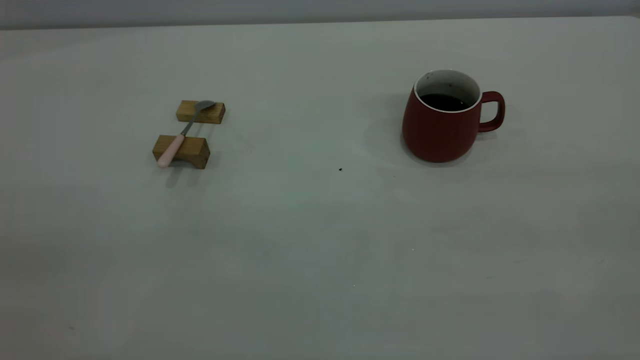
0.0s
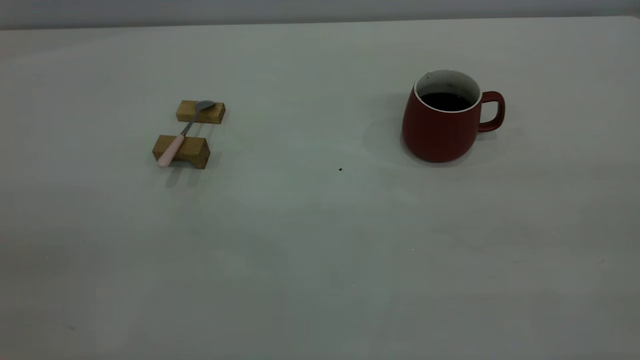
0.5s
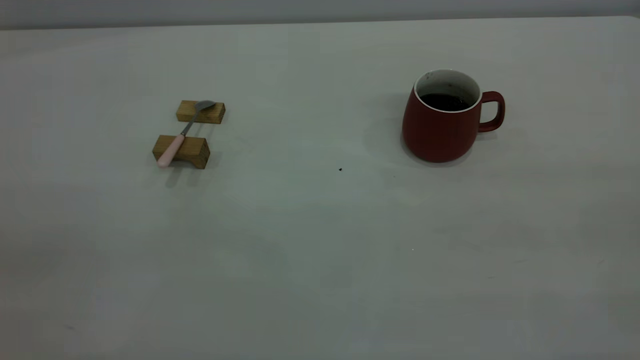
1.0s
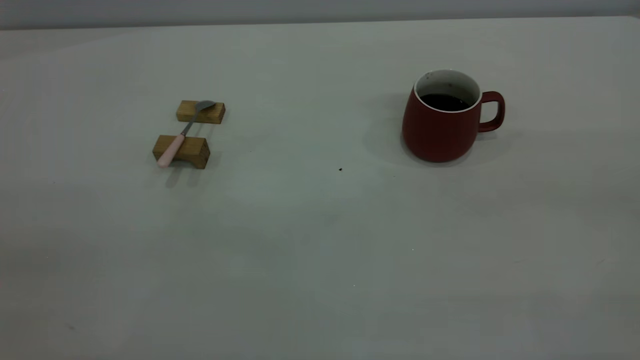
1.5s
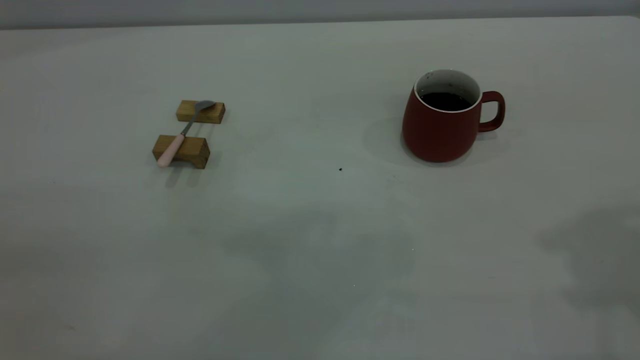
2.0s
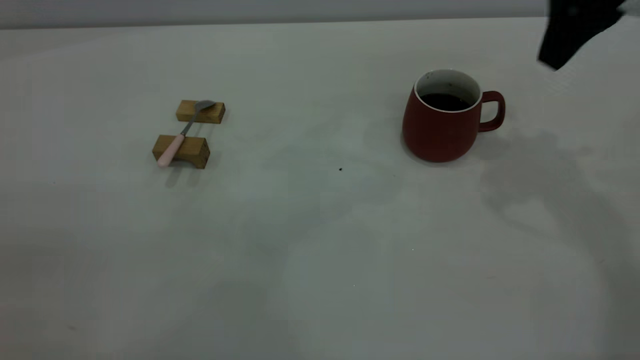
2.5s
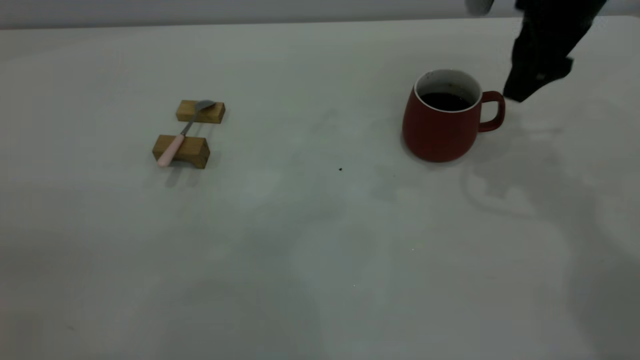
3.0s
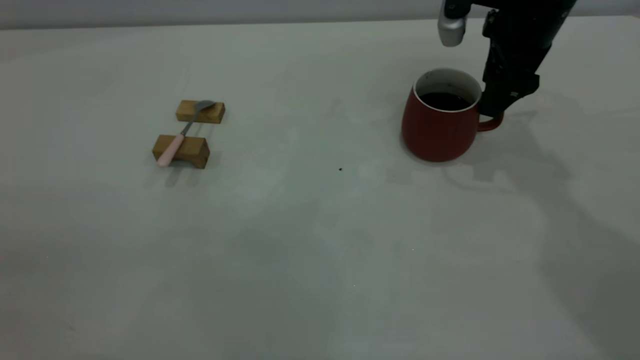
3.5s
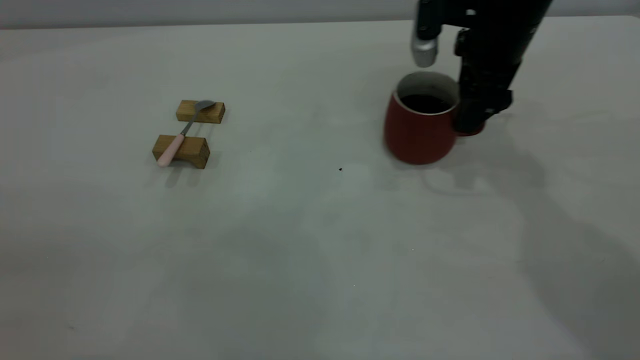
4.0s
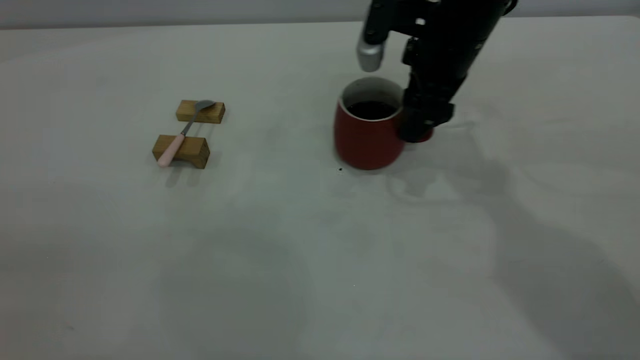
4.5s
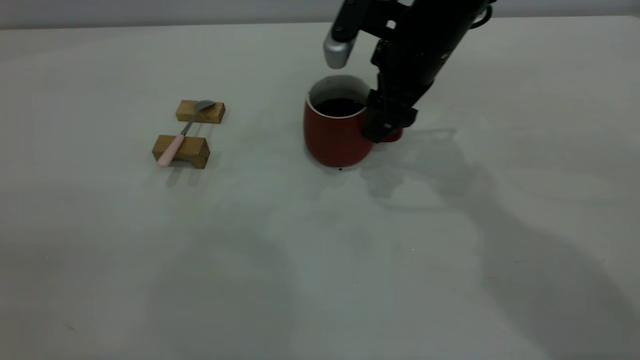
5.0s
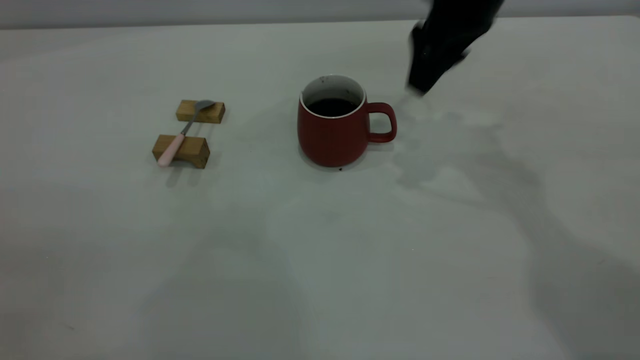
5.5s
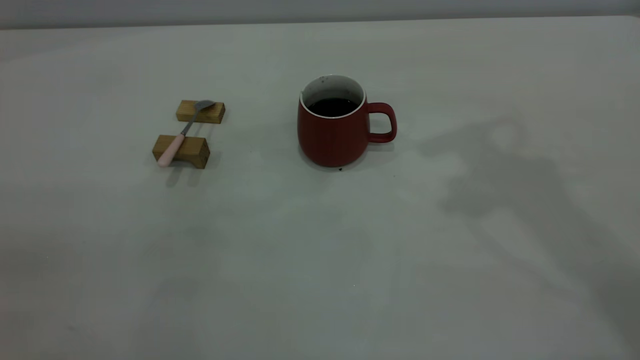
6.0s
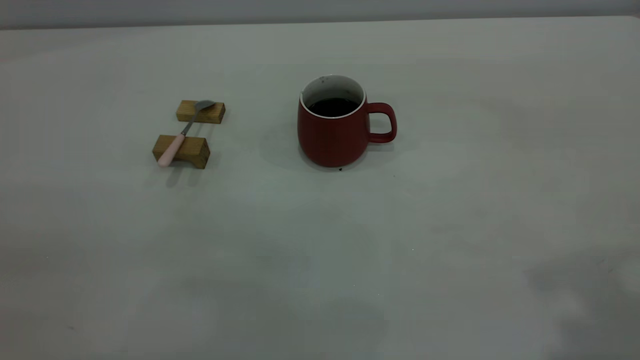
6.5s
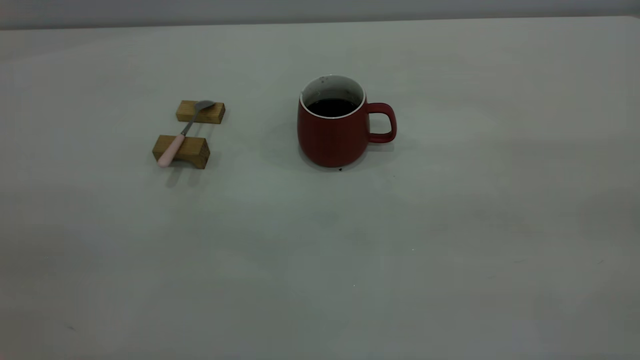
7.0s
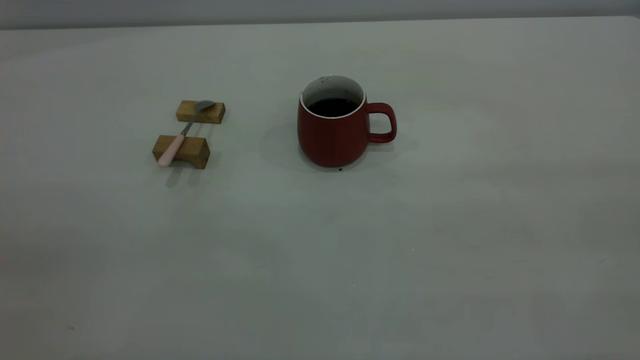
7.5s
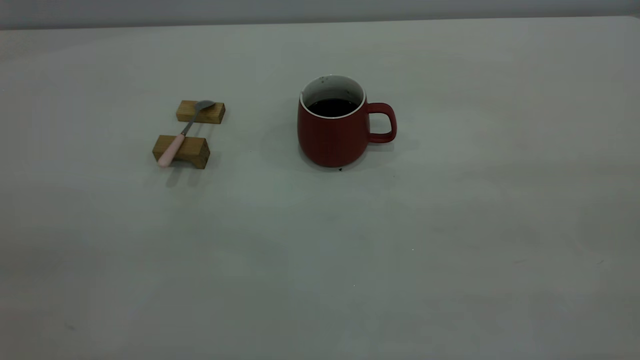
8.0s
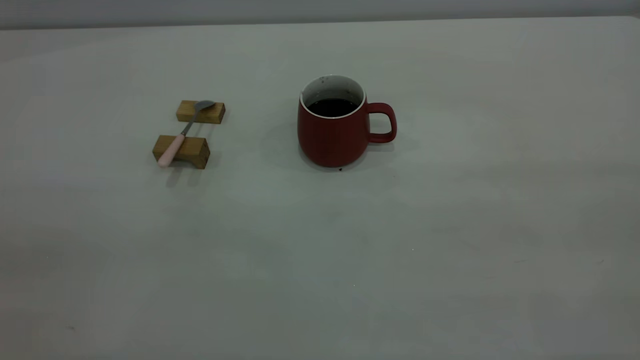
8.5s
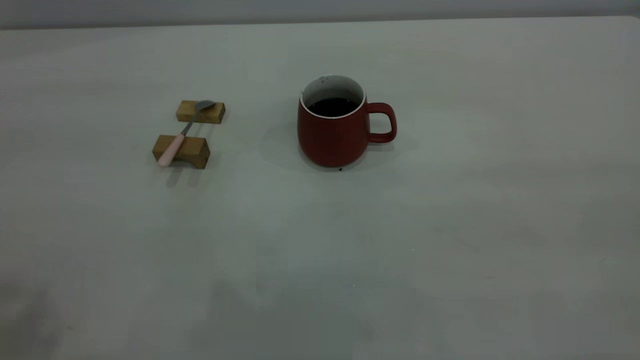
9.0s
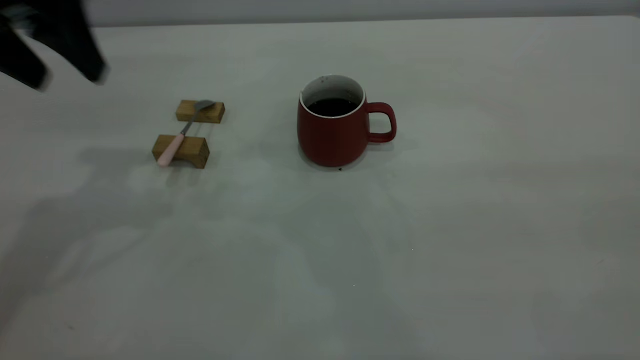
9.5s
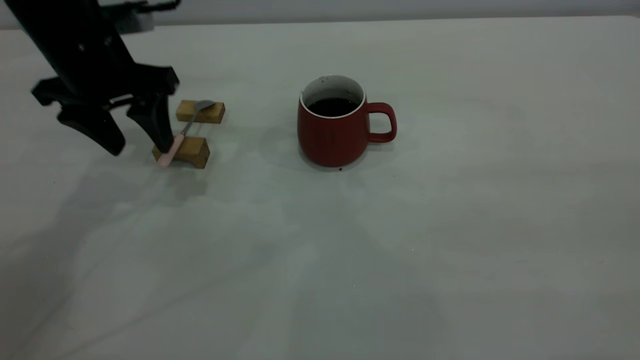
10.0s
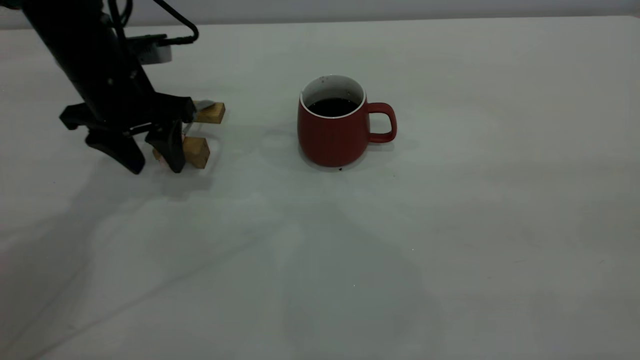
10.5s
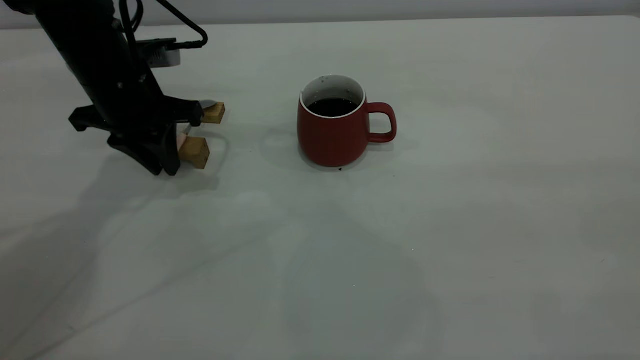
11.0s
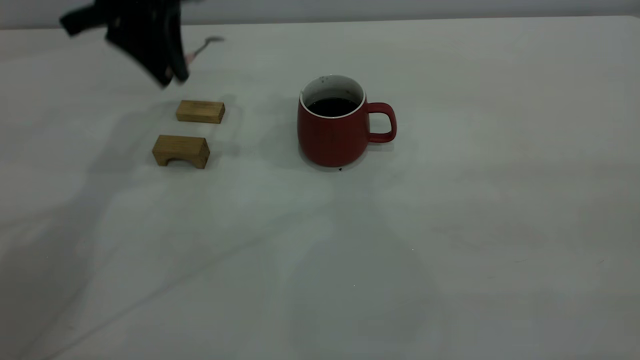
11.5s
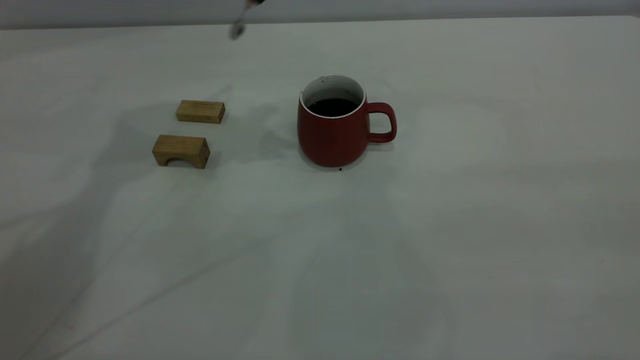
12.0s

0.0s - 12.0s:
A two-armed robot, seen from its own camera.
Step, 0.0s - 5.0s: Move the cup with coffee to the center of view.
Step, 5.5s - 11.0s: Pick up the spoon.
2.0s - 4.0s: The right gripper is displaced downward, forward and to the left by approximately 35 cm.
4.0s - 6.0s: The right gripper shifts approximately 25 cm upward.
8.0s - 10.0s: The left gripper heads forward and downward, covering approximately 40 cm.
10.0s - 12.0s: The left gripper shifts about 15 cm upward, to the right and forward, and closes its fingers.

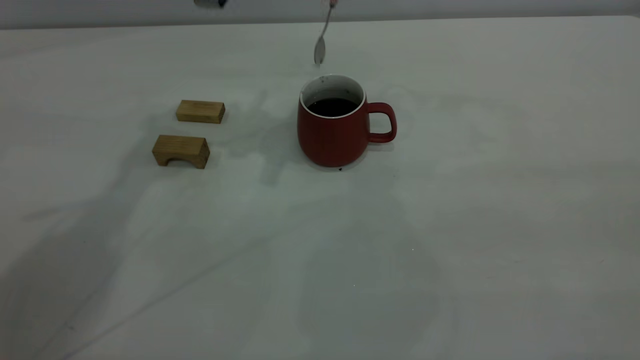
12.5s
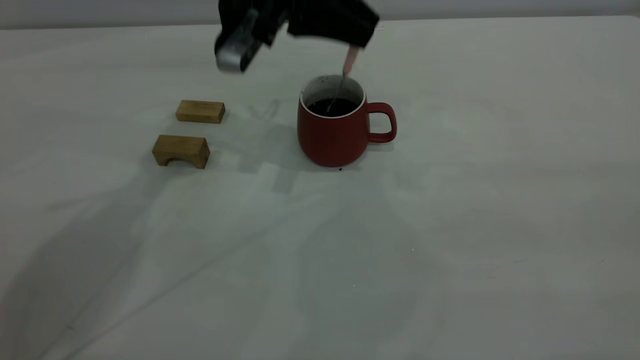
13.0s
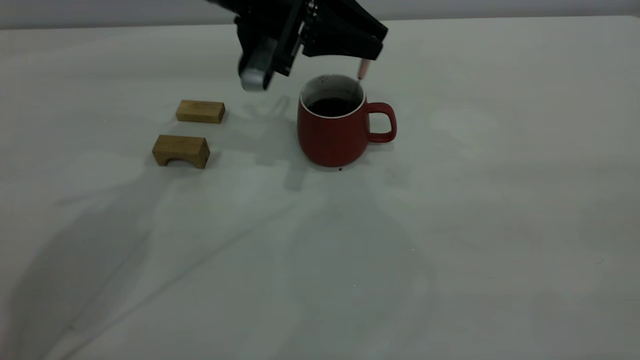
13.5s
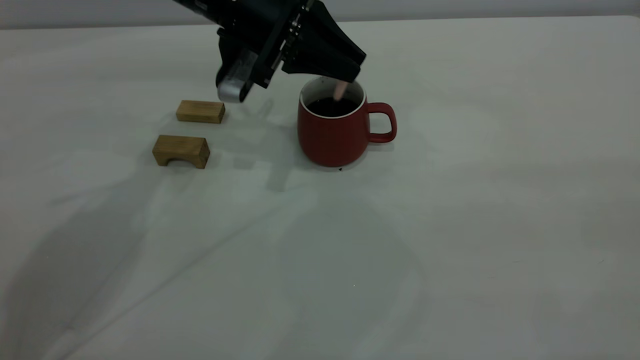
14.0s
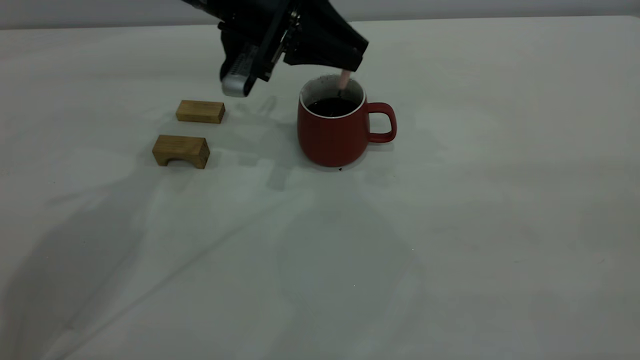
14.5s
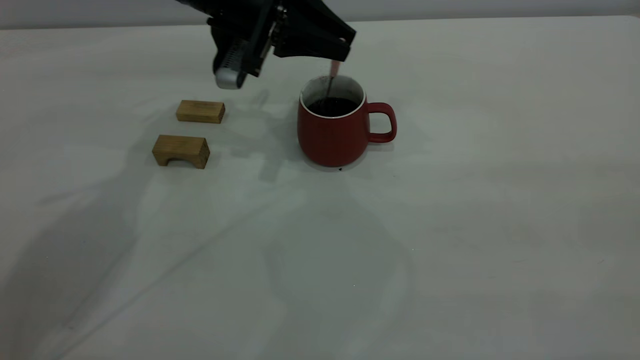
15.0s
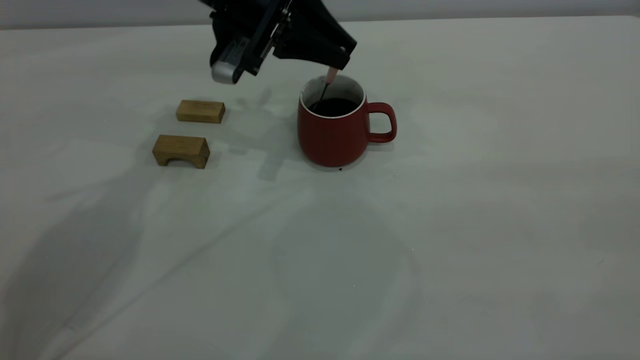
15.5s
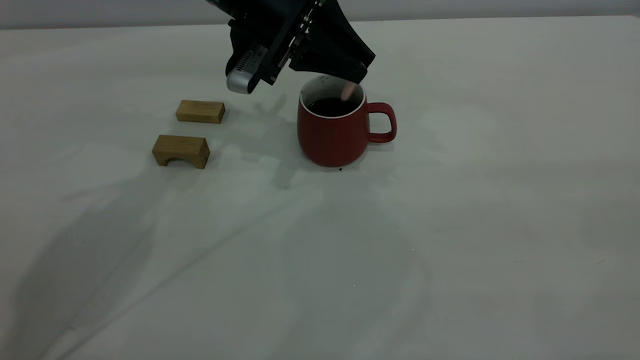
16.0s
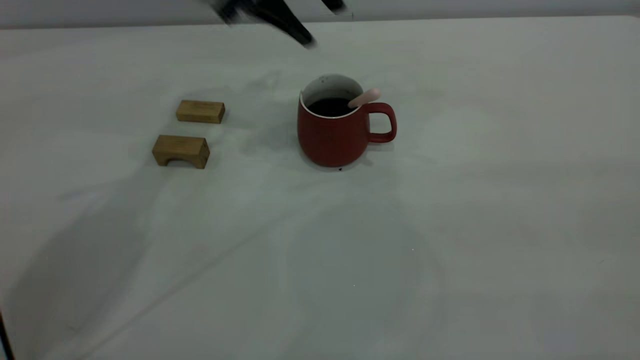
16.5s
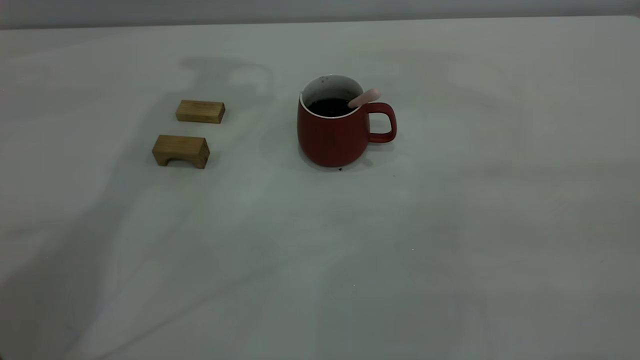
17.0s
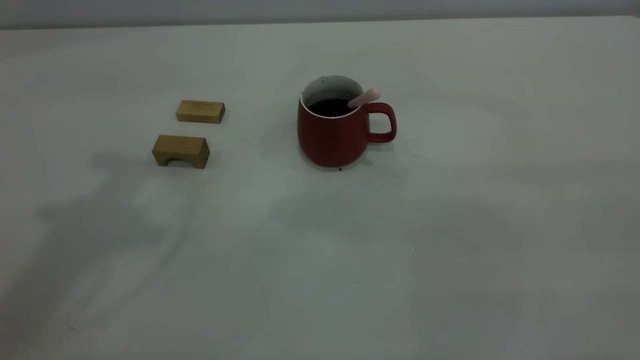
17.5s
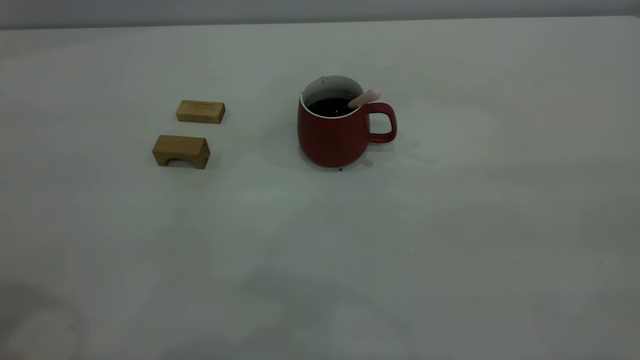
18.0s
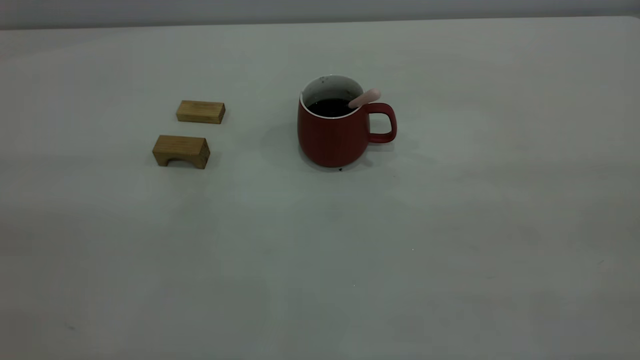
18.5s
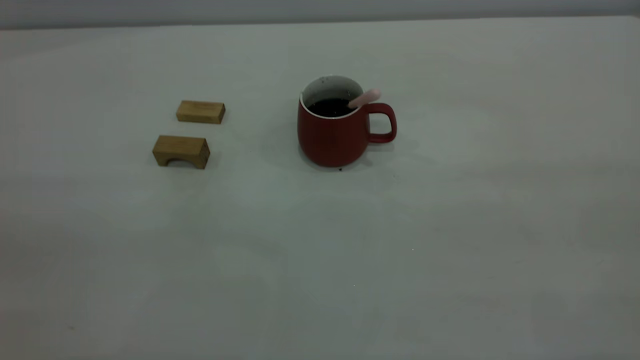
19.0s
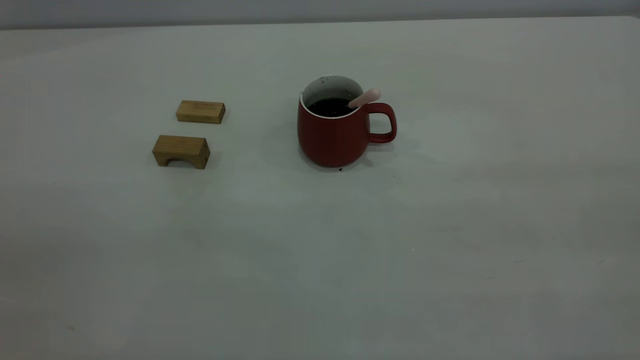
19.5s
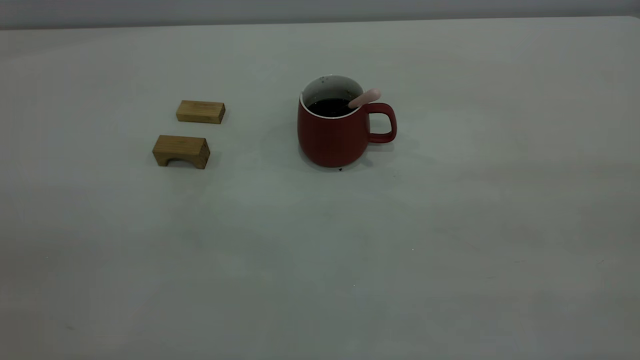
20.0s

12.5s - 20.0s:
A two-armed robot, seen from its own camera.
Step, 12.5s - 16.0s: Stir the coffee in the cup.
12.5s - 14.5s: The left gripper heads downward, covering about 10 cm.
14.5s - 16.5s: The left gripper goes about 10 cm upward, and opens its fingers.
16.5s - 18.0s: The left gripper travels backward and to the left by about 40 cm.

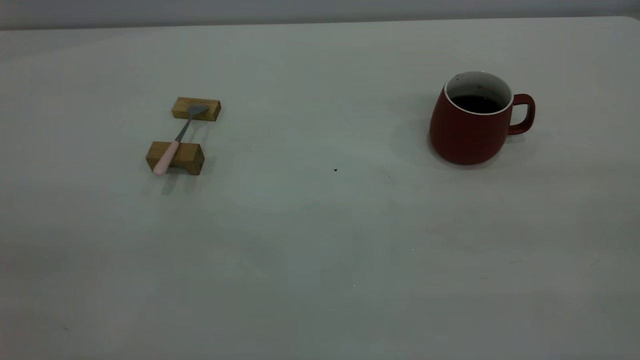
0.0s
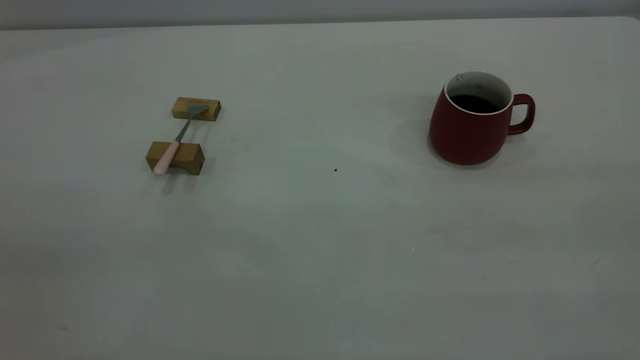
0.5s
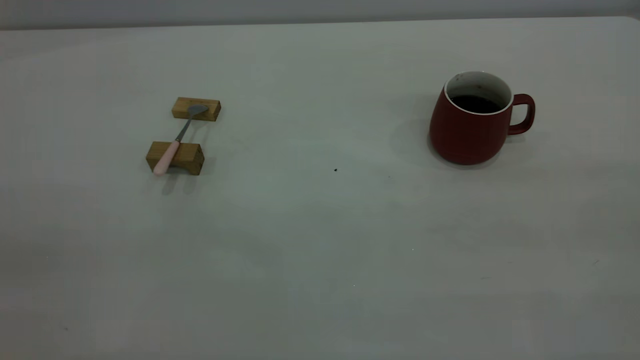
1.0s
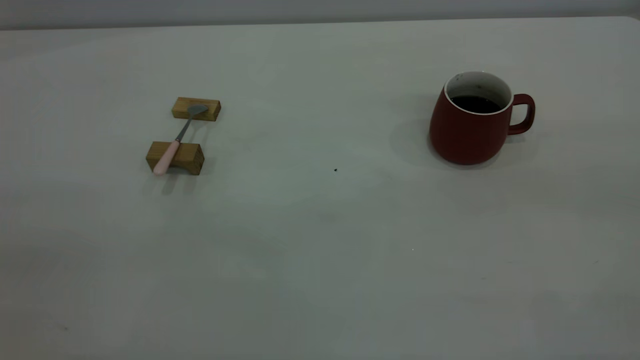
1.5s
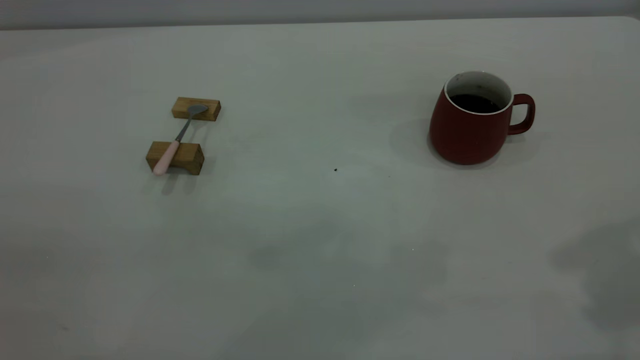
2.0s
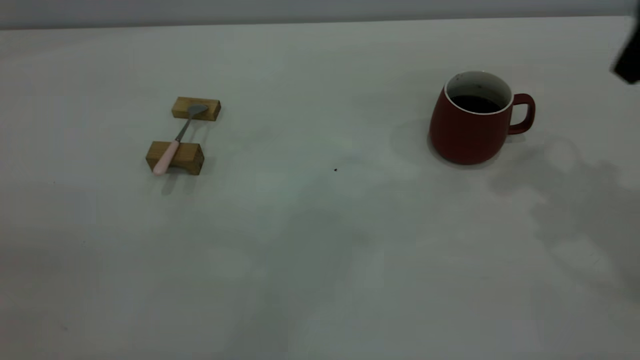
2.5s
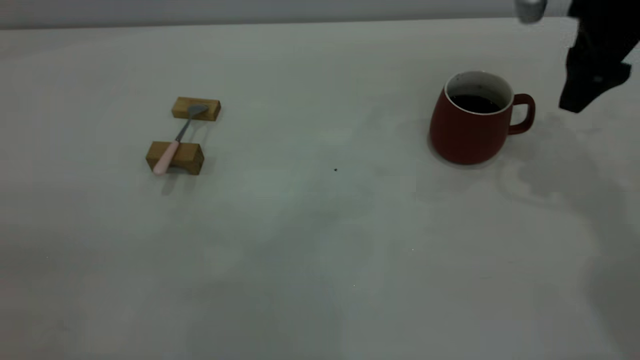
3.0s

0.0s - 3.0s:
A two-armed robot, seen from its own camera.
1.5s - 3.0s: The right gripper moves forward and downward, approximately 40 cm.
